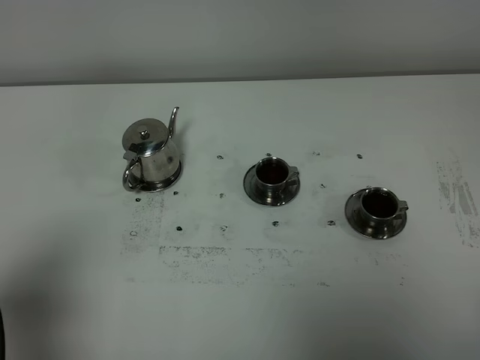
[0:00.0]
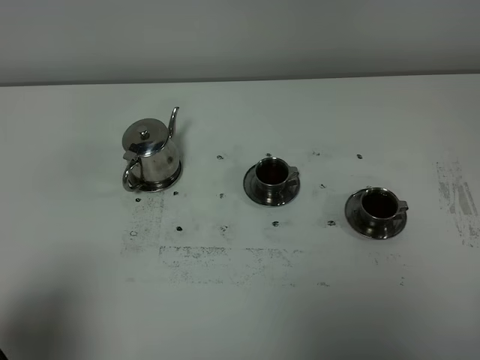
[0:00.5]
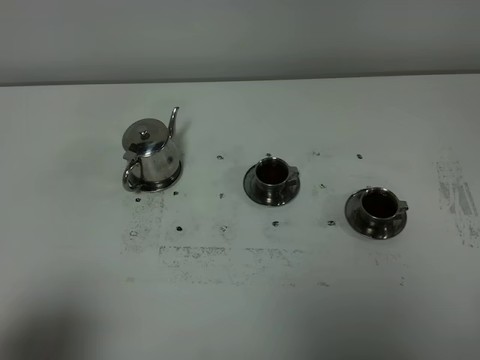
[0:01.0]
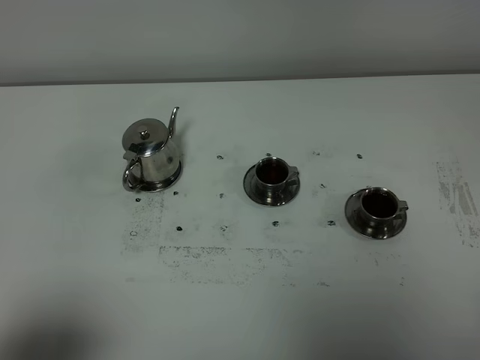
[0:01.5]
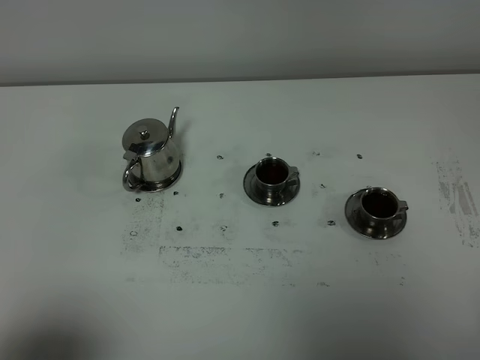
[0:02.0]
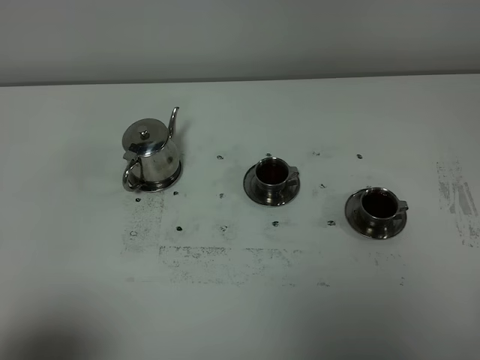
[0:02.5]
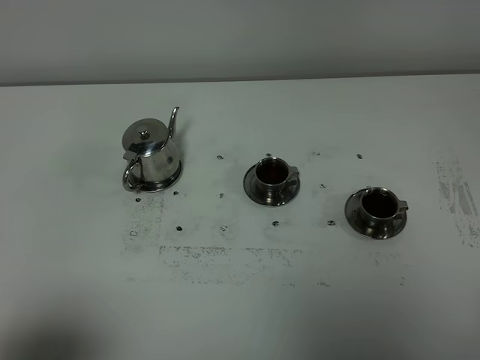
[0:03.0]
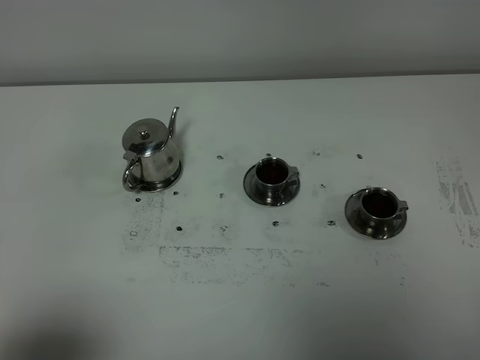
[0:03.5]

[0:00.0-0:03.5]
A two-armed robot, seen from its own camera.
Task of the whole recording: grasp the stainless steel teapot and pour the tea into the two stainless steel teacups one by one, put the stainless steel teapot back in its original place.
0:00.0 to 0:02.0: The left gripper heads backward, covering approximately 10 cm.
0:02.0 to 0:03.5: The two grippers keep their place.

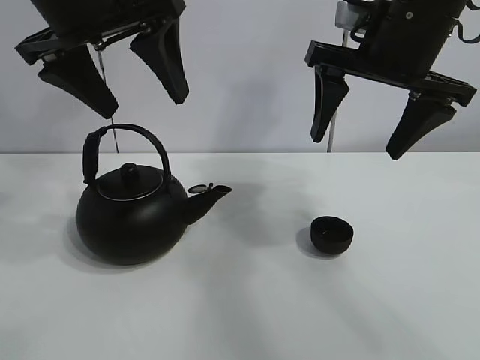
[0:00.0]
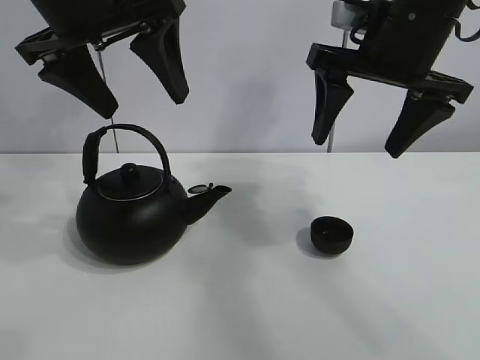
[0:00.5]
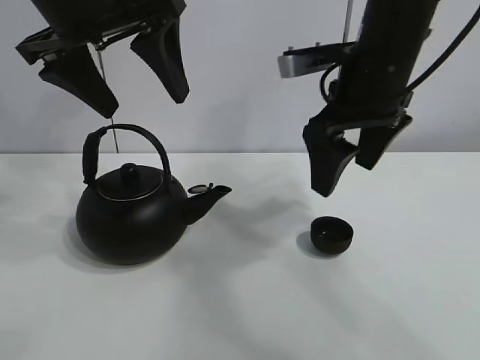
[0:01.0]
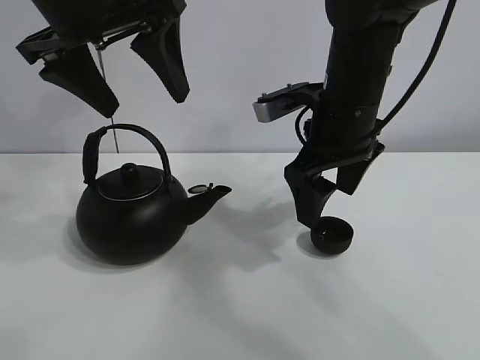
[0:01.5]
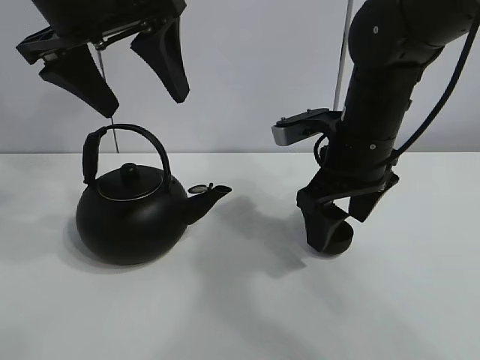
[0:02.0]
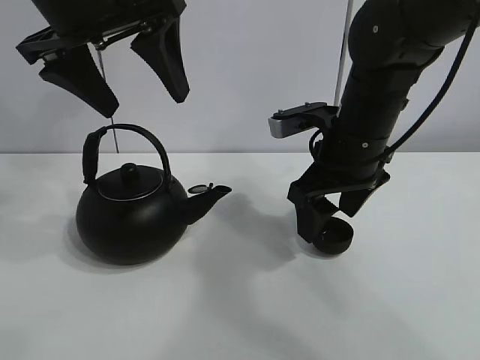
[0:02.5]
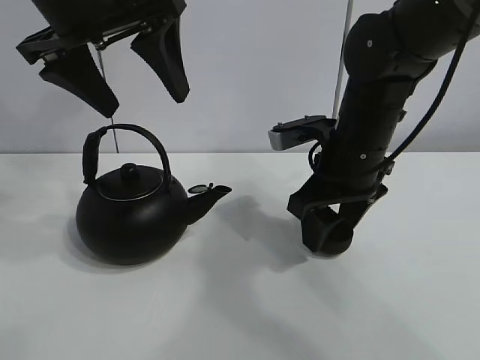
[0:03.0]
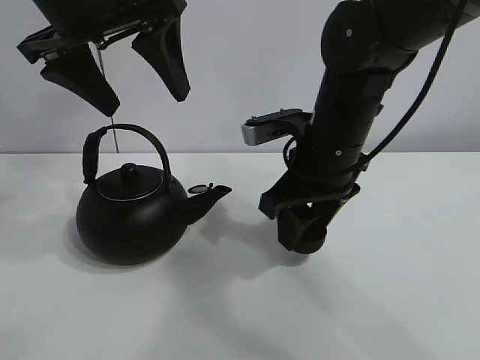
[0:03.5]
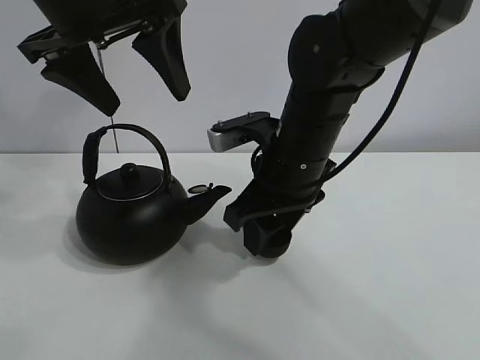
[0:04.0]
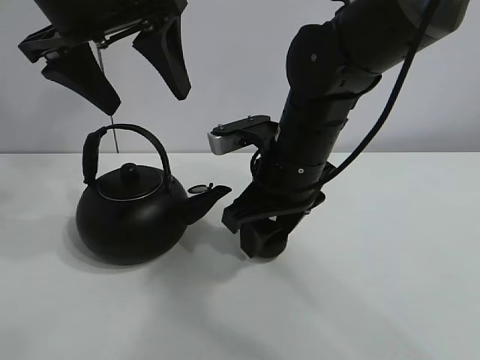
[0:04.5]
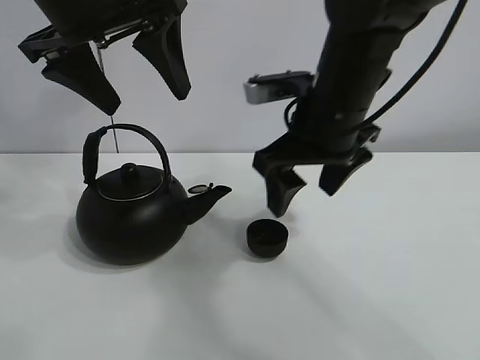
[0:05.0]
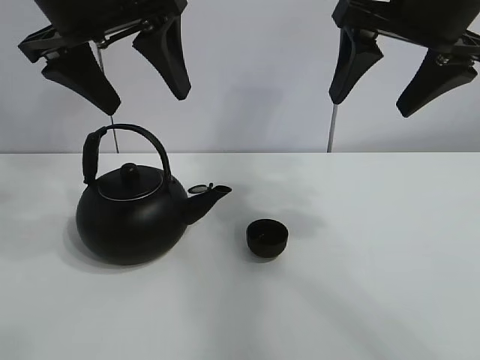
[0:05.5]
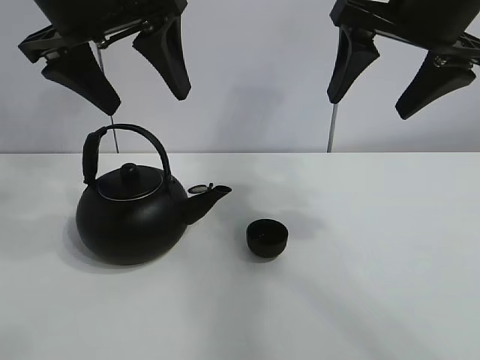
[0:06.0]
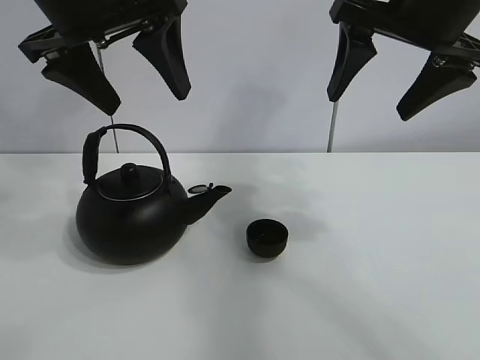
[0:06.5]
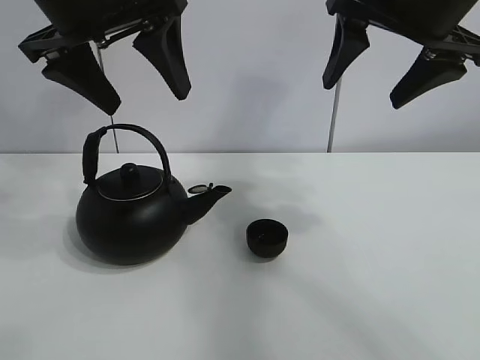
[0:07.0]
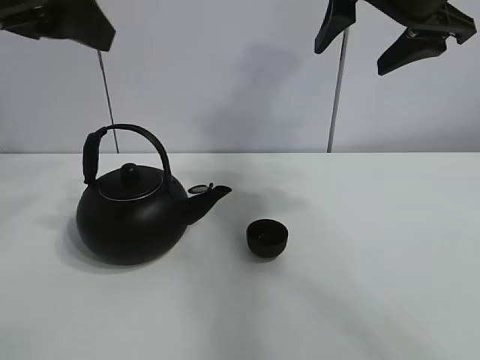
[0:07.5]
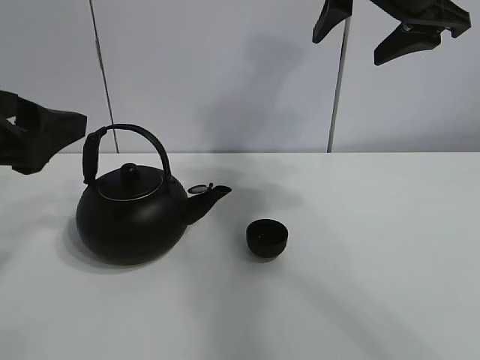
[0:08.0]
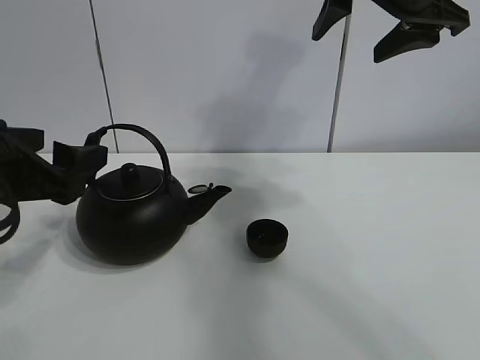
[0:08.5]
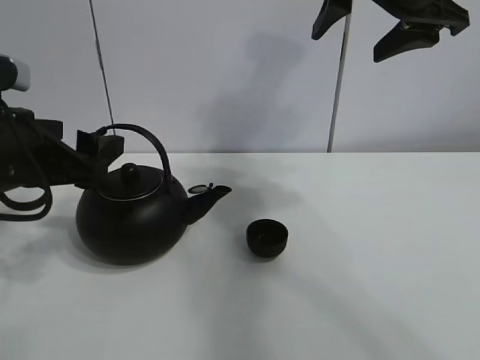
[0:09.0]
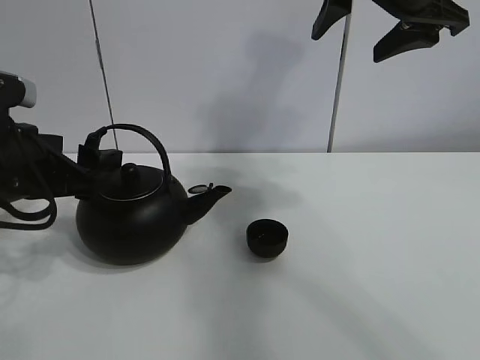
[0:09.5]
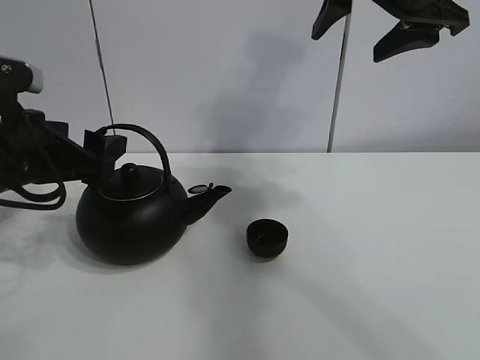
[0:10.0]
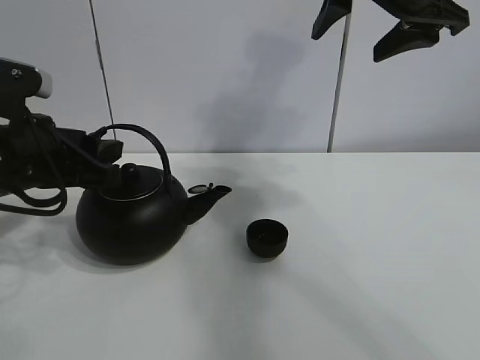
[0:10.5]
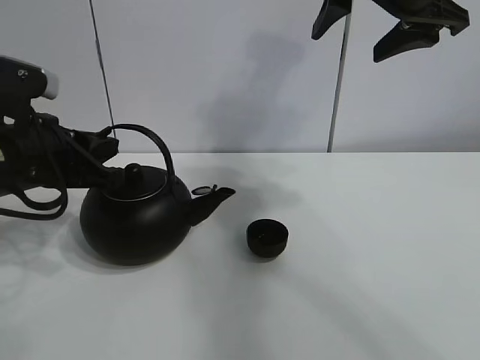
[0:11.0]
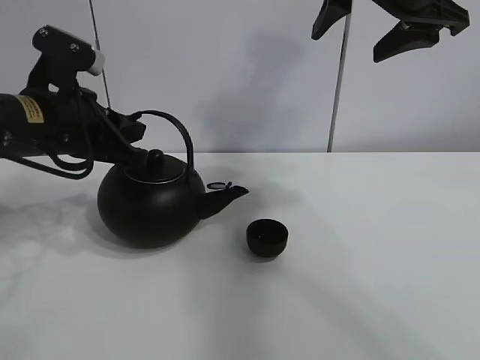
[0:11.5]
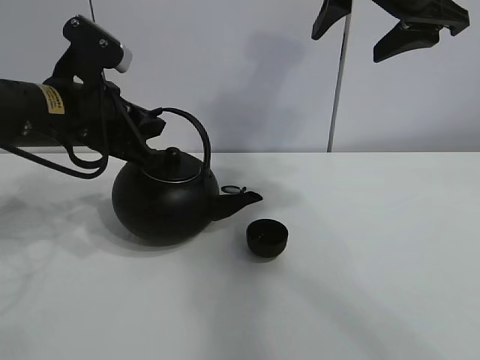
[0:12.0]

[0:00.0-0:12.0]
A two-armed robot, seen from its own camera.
Task of the whole recording: pour tea into the teacup.
Step, 0:00.0 to 0:03.0: Pick up the teacup with the right gripper.
Step, 0:03.5 to 0:04.5: Place the teacup in the center of view with the right gripper.
Step, 0:05.0 to 0:10.5: Pick up the teapot with the left gripper.
0:02.0 to 0:04.0: The right gripper shifts roughly 5 cm to the left, and closes up.
0:04.0 to 0:06.0: The right gripper goes approximately 20 cm upward and to the right, and opens up.
0:06.0 to 0:08.0: The left gripper moves backward, downward and to the left, roughly 15 cm.
0:08.0 to 0:10.0: The left gripper travels forward and downward by about 10 cm.
0:10.0 to 0:12.0: The left gripper moves roughly 5 cm, and closes.

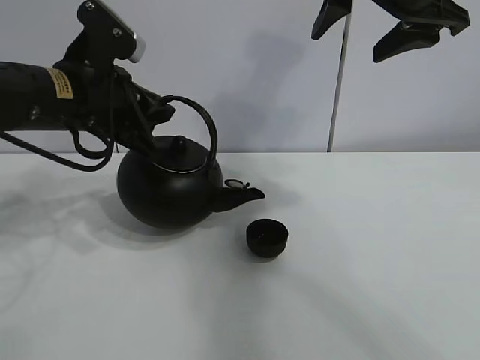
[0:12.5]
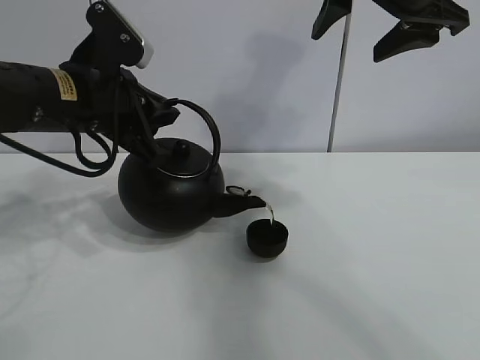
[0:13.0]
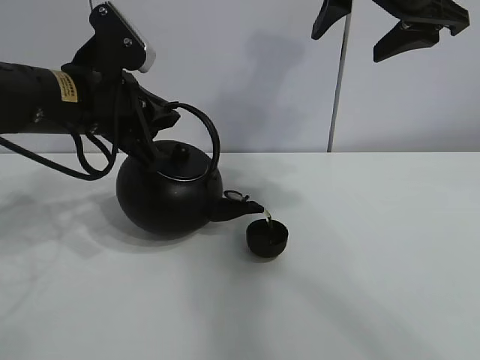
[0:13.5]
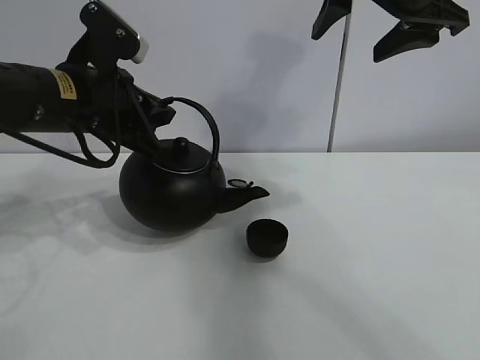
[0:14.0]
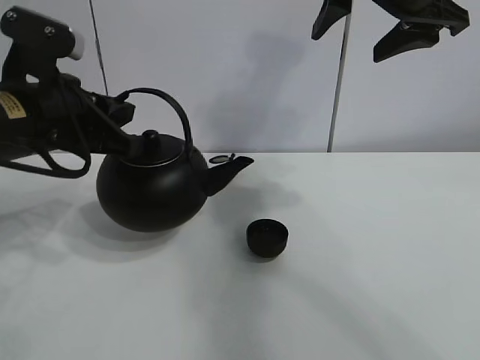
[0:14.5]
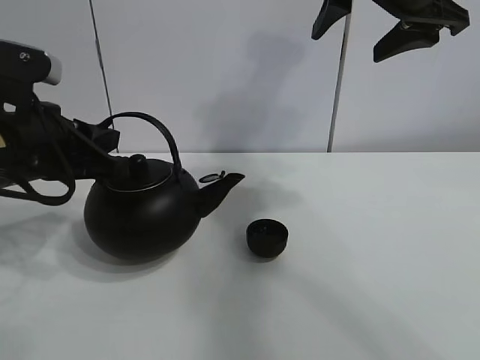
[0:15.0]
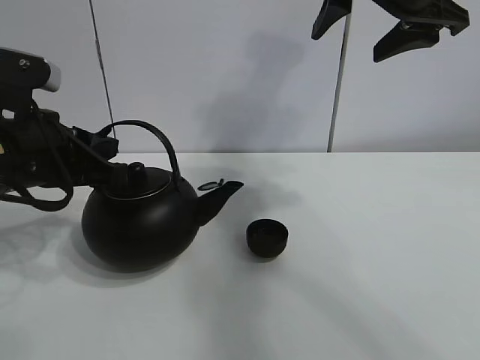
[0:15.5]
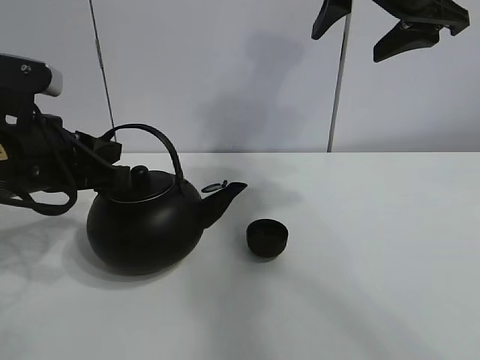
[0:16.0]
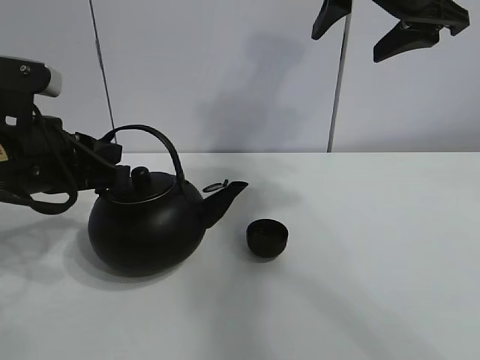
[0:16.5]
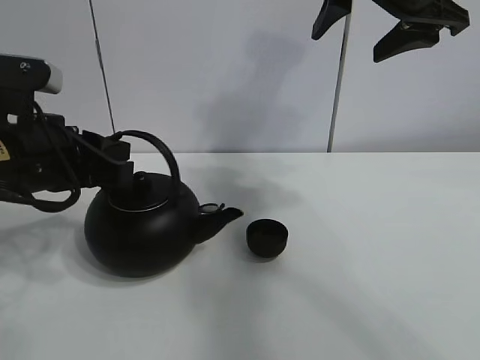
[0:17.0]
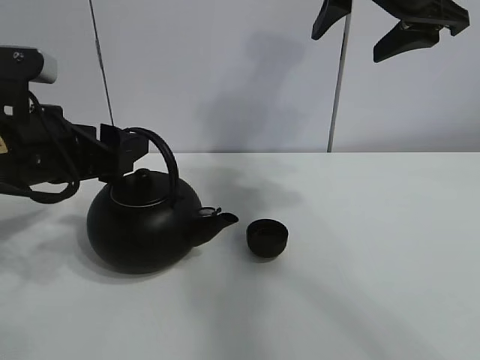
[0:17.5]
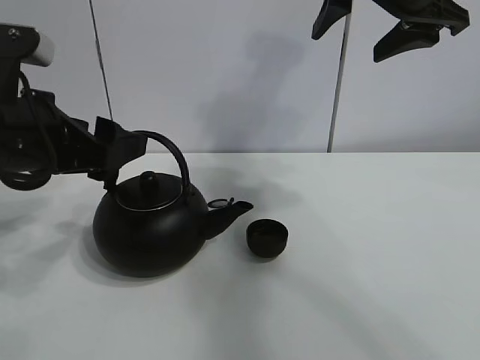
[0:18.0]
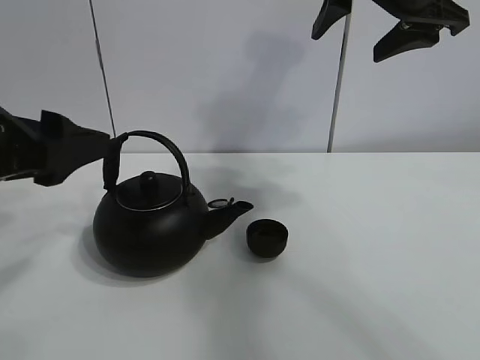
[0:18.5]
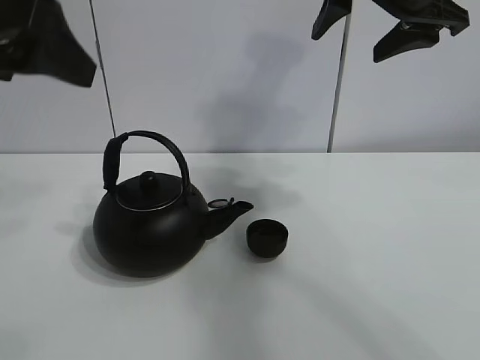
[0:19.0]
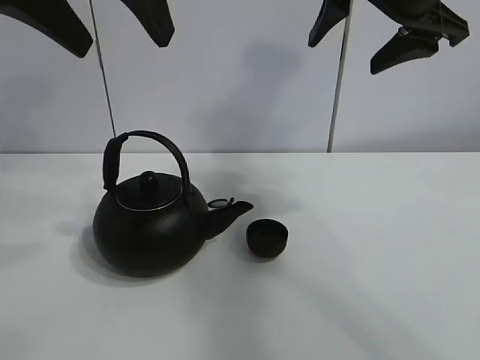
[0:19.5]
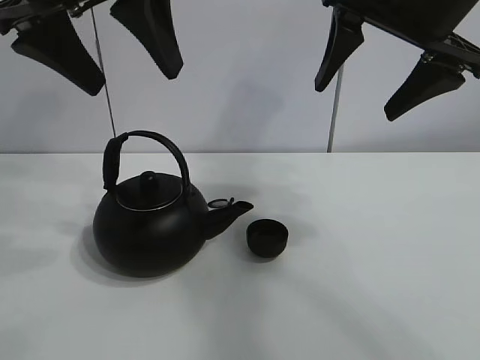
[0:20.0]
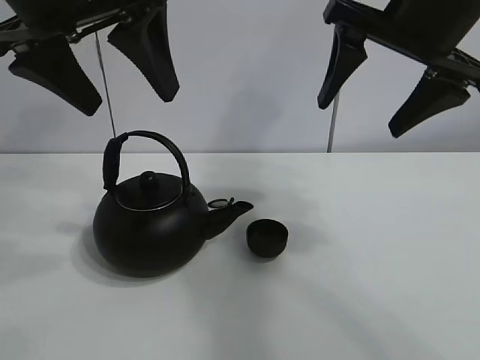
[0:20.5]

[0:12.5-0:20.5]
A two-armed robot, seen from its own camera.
Task of the whole recording: pour tea into the teacup.
0:12.5 to 0:14.5: The grippers stay close to where they were, moving slightly.
0:14.5 to 0:16.5: There are only small adjustments of the grippers.
0:16.5 to 0:18.5: The left gripper moves backward, some 5 cm, and opens.
0:18.5 to 0:20.5: The left gripper is displaced upward, to the right and forward by approximately 15 cm.

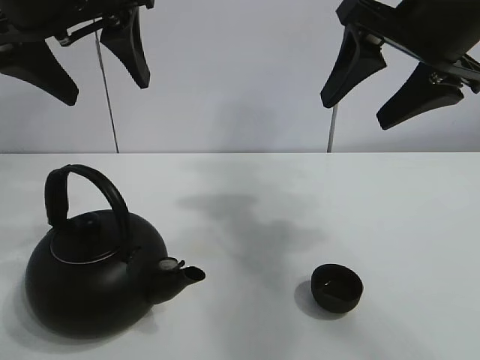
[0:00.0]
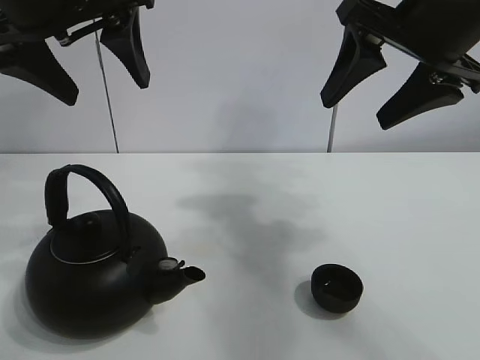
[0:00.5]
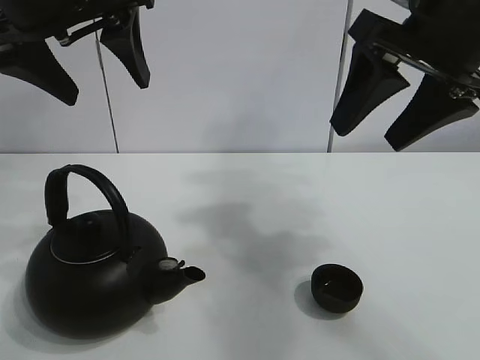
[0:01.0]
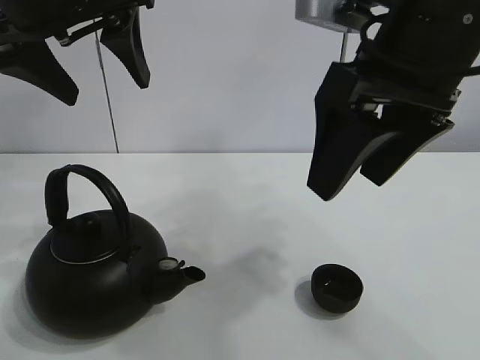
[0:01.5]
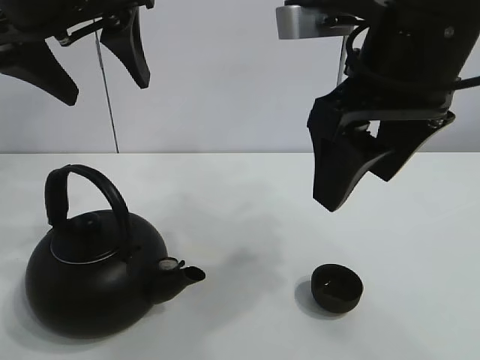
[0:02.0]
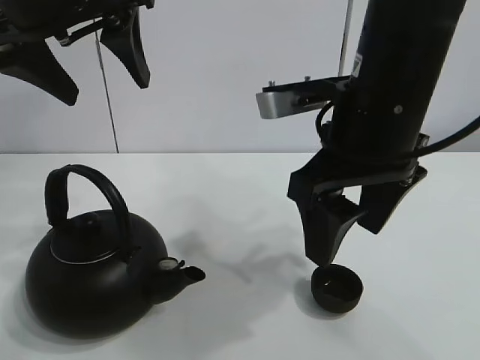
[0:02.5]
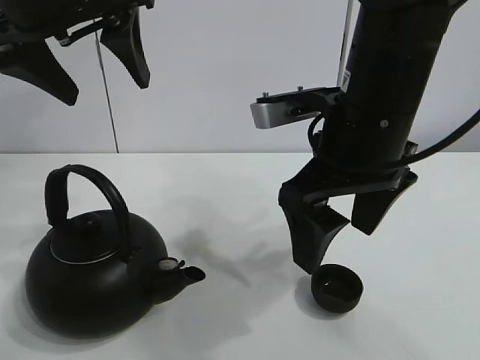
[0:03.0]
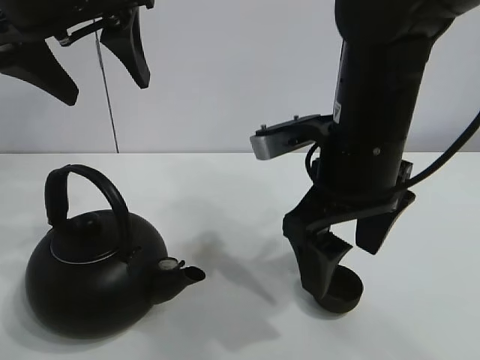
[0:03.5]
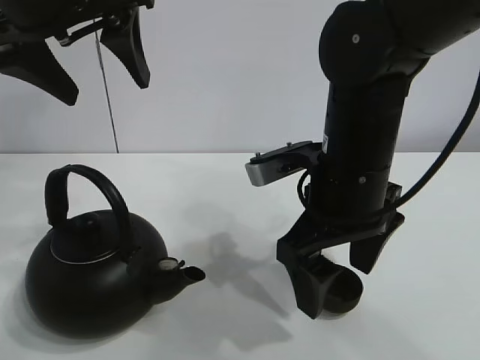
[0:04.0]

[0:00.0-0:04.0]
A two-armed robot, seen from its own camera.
Task of the whole recording: pour tea into the teacup.
0:02.0 to 0:04.0: The right gripper heads downward, covering approximately 10 cm.
